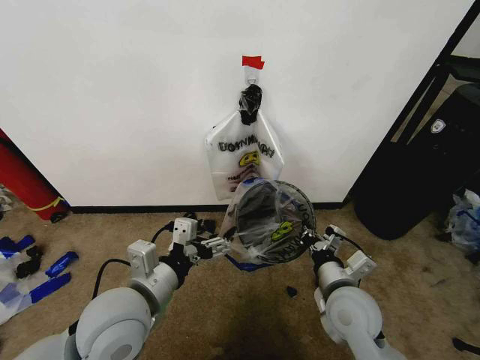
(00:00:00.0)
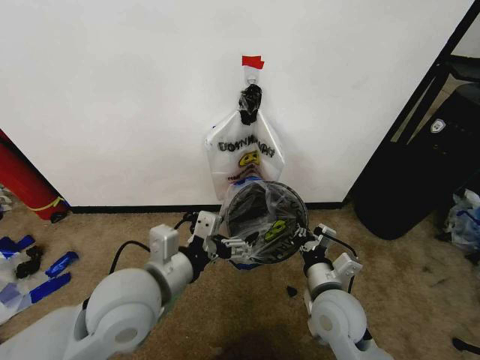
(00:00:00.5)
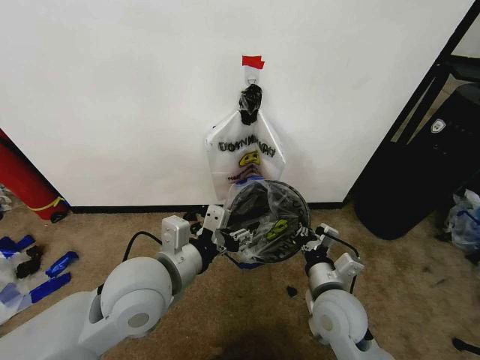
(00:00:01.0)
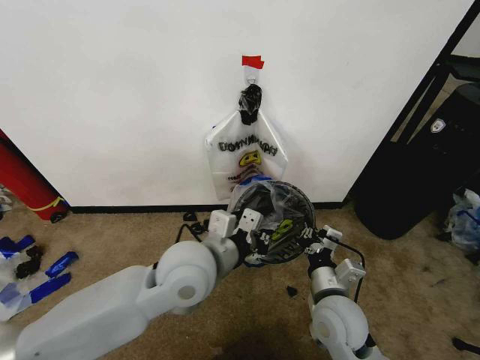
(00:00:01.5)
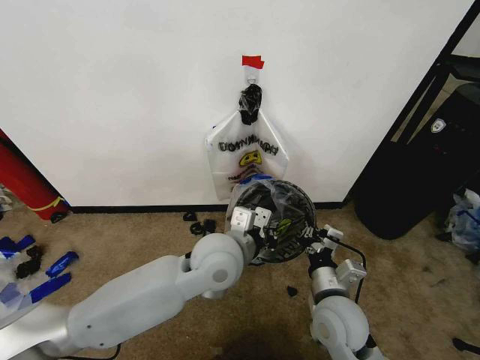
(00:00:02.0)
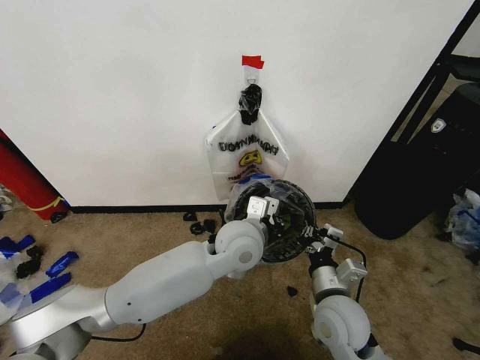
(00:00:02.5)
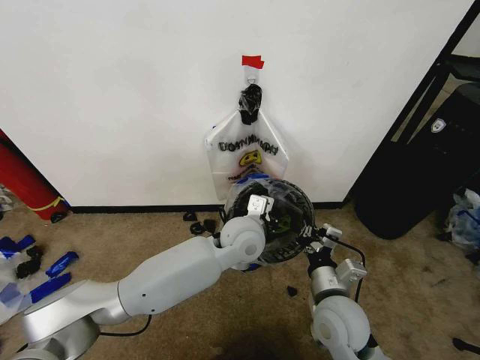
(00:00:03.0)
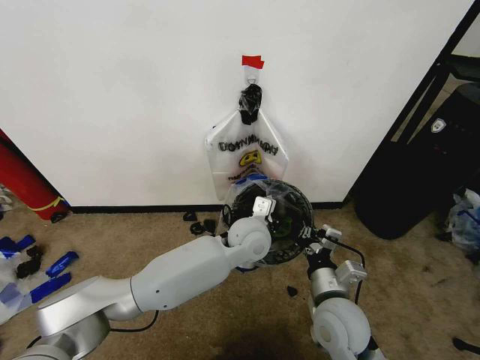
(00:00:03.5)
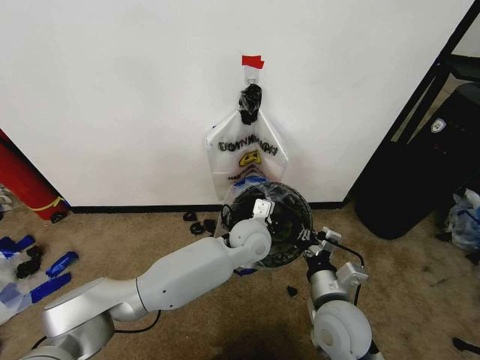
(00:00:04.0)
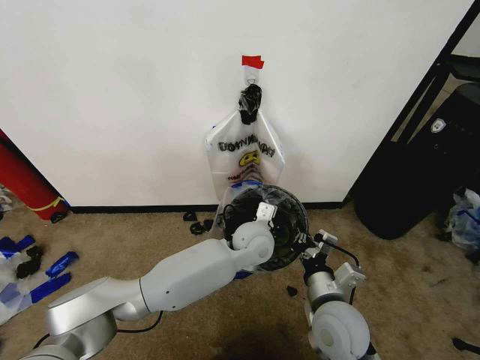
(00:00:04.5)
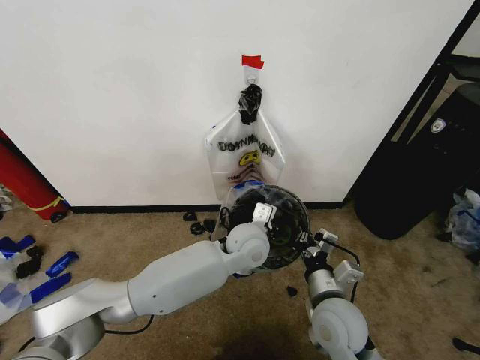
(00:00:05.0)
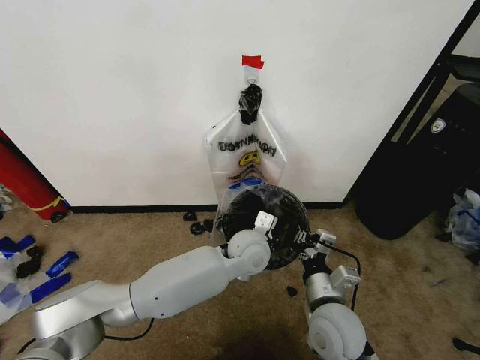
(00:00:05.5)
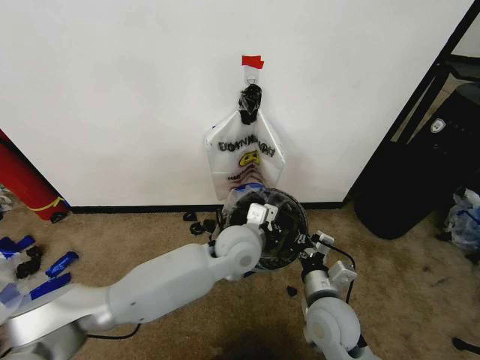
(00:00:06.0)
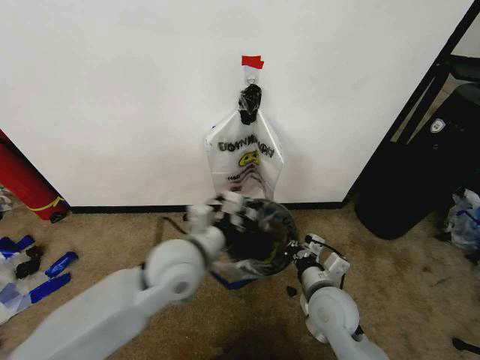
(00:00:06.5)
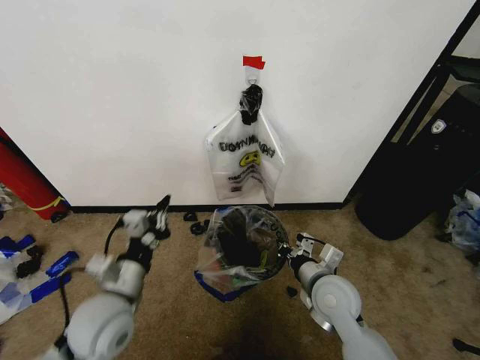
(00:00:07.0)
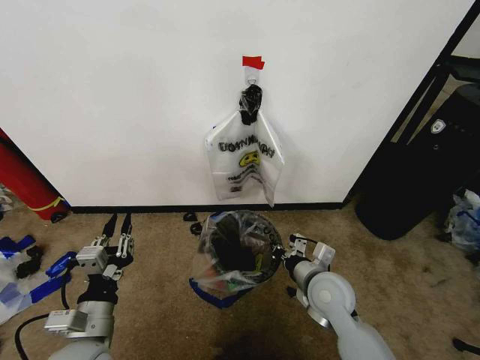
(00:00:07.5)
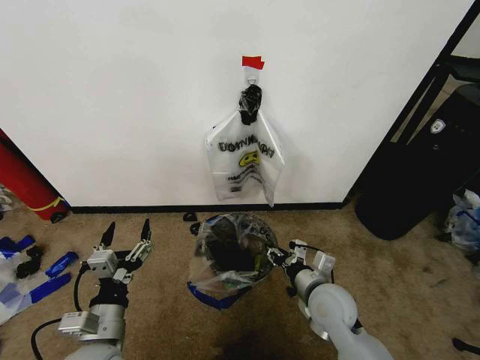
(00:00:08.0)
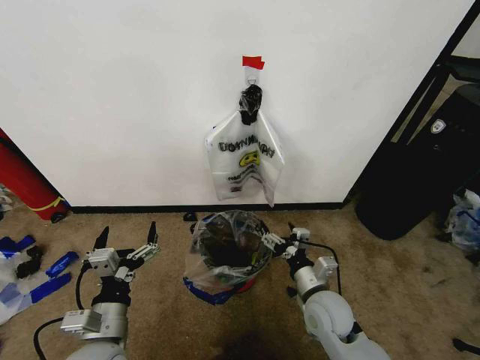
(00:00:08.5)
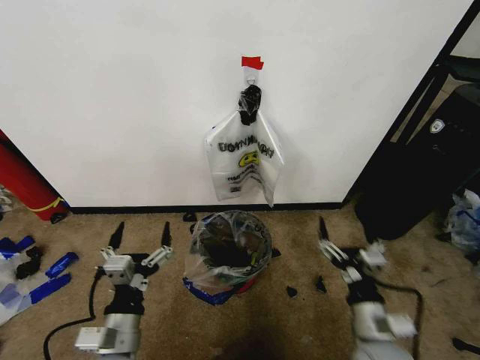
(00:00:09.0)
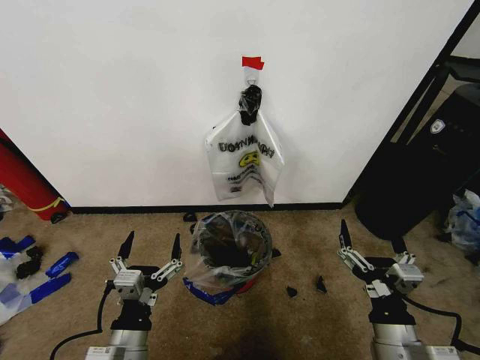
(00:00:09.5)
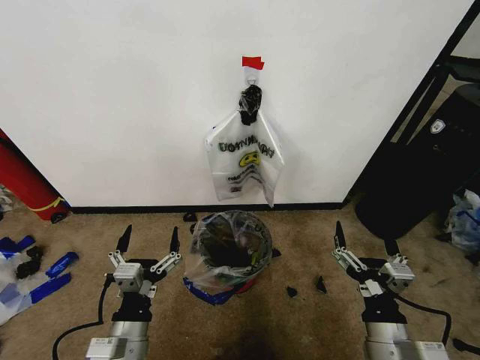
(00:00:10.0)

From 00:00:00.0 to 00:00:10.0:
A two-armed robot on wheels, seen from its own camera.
Task of the whole recording: Pick up the garbage bag from the wall and place it over the trash bin.
From 00:00:00.0 to 00:00:02.0: The left gripper moves to the right and forward, approximately 15 cm, and closes up.
From 00:00:02.0 to 00:00:04.0: The left gripper travels forward, downward and to the right by approximately 15 cm.
From 00:00:04.0 to 00:00:06.0: The left gripper shifts by approximately 5 cm.
From 00:00:06.0 to 00:00:08.0: The right gripper opens up; the left gripper moves to the left and backward, roughly 30 cm, and opens up.
From 00:00:08.0 to 00:00:10.0: The right gripper shifts approximately 15 cm backward, and opens its fingers; the left gripper shifts roughly 5 cm to the right.
